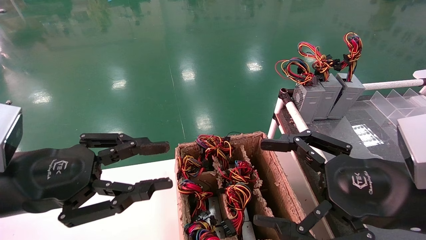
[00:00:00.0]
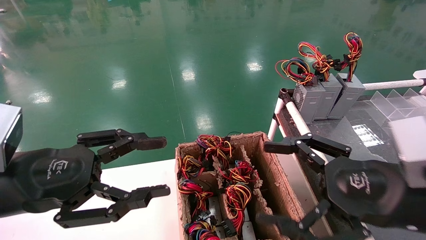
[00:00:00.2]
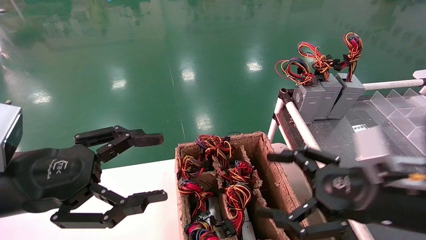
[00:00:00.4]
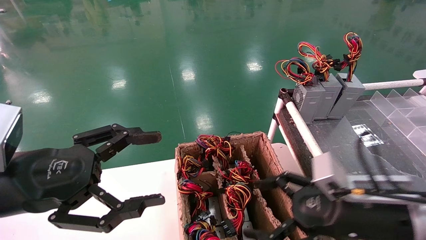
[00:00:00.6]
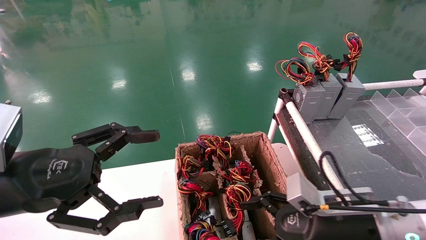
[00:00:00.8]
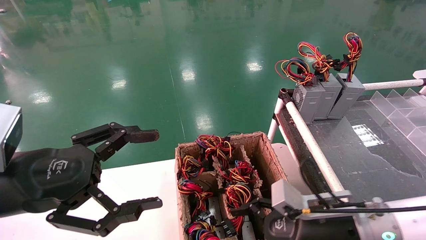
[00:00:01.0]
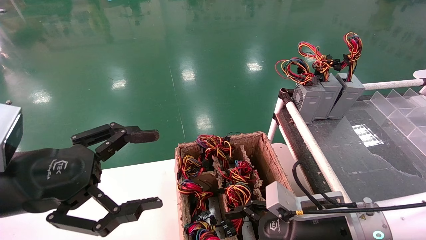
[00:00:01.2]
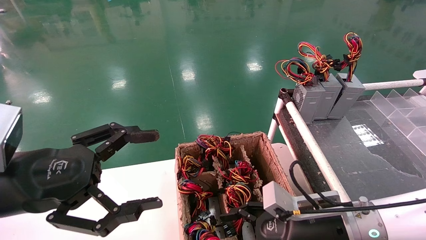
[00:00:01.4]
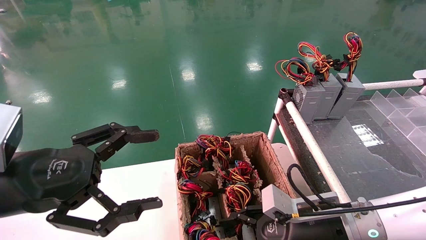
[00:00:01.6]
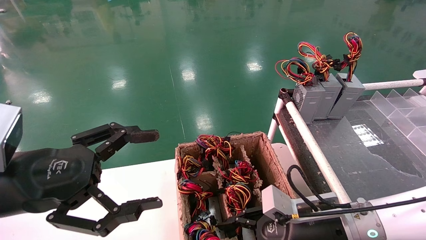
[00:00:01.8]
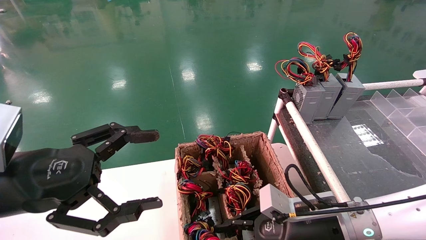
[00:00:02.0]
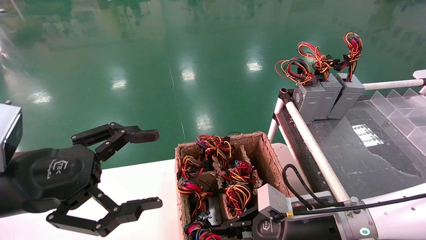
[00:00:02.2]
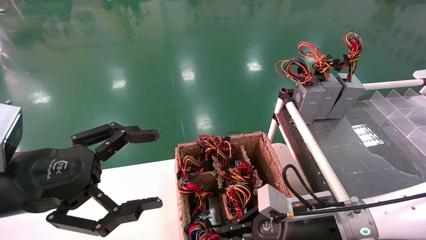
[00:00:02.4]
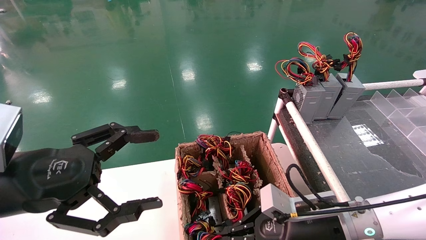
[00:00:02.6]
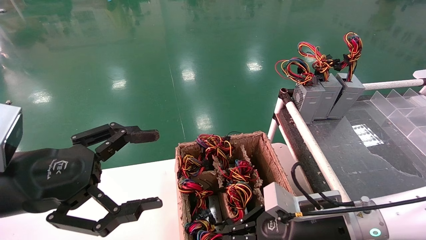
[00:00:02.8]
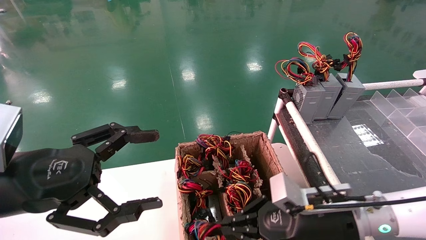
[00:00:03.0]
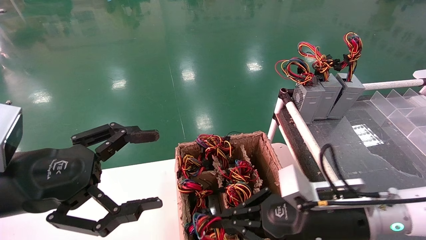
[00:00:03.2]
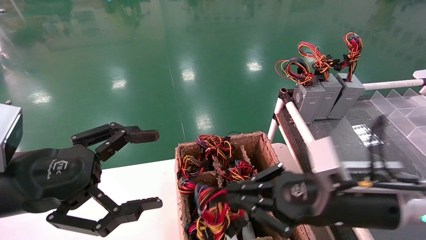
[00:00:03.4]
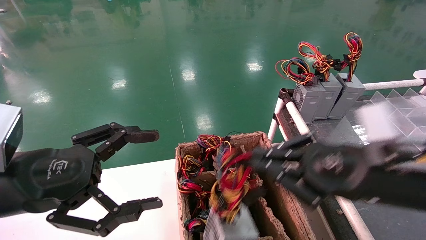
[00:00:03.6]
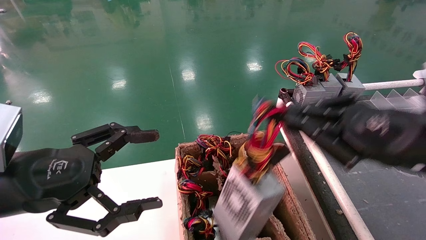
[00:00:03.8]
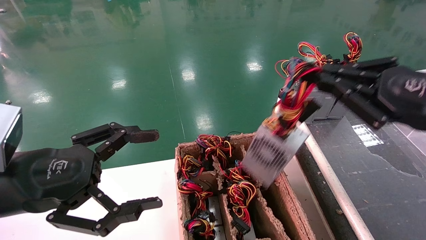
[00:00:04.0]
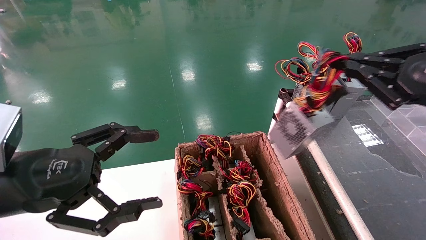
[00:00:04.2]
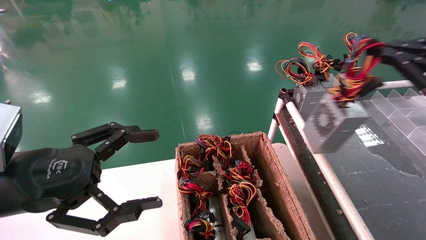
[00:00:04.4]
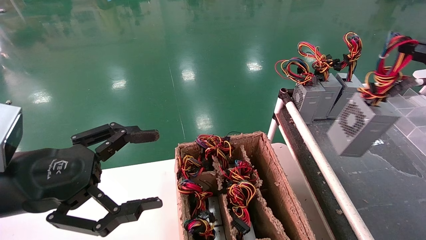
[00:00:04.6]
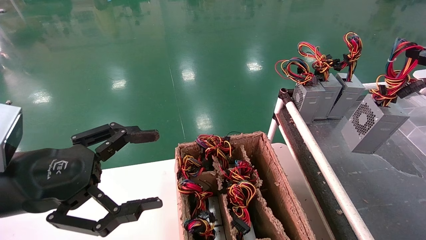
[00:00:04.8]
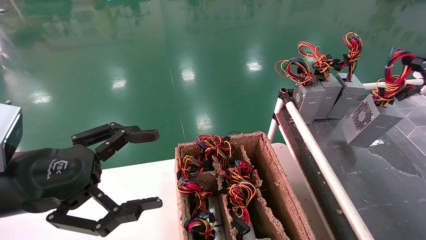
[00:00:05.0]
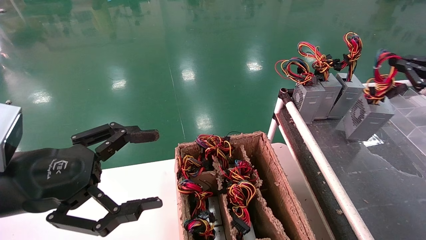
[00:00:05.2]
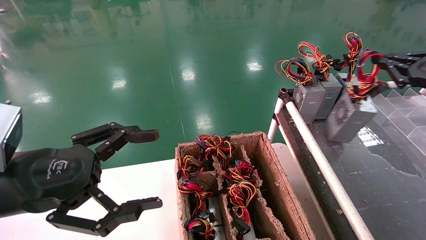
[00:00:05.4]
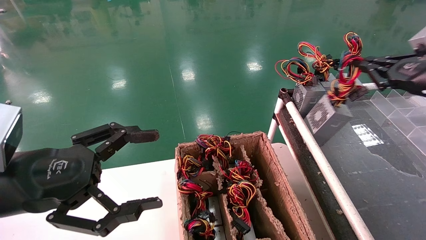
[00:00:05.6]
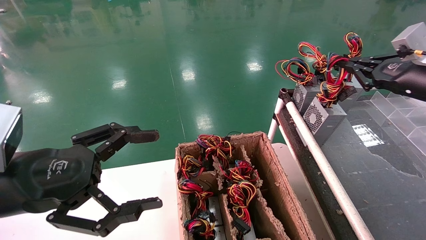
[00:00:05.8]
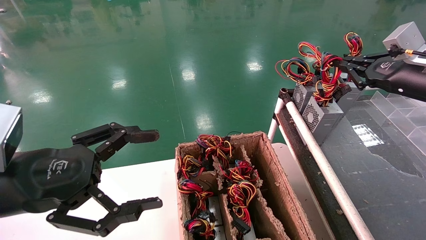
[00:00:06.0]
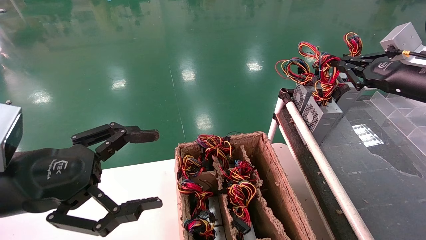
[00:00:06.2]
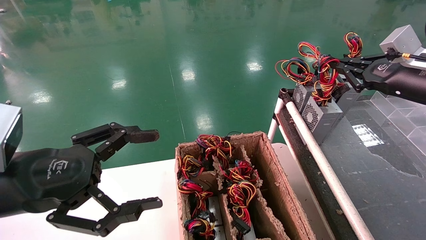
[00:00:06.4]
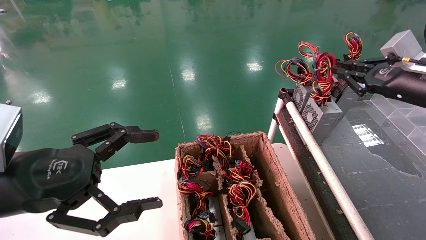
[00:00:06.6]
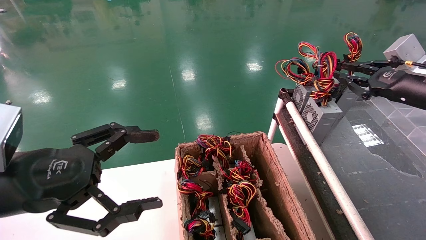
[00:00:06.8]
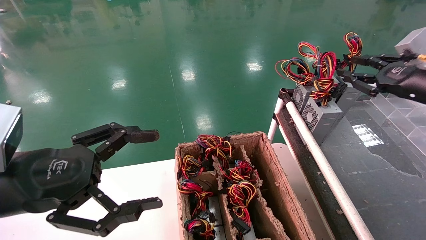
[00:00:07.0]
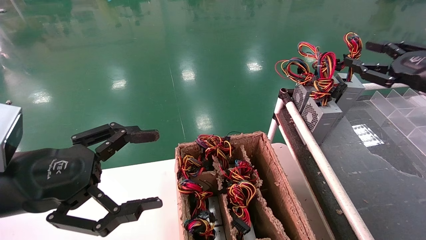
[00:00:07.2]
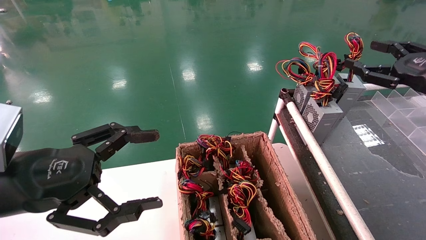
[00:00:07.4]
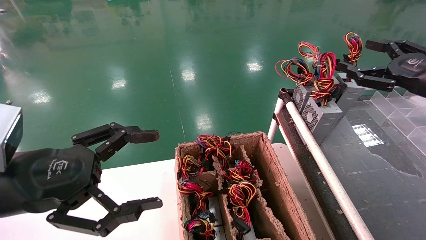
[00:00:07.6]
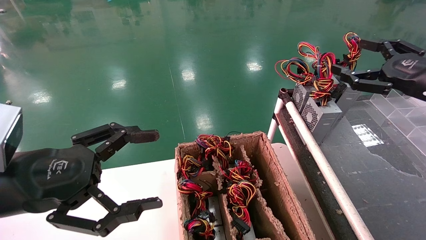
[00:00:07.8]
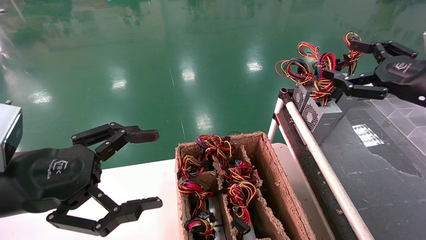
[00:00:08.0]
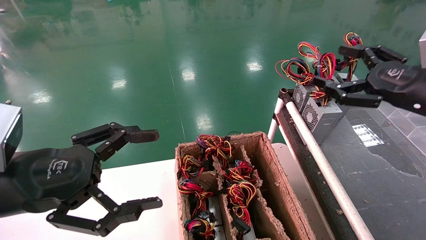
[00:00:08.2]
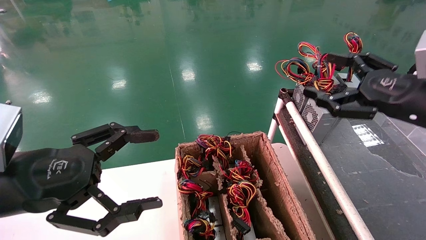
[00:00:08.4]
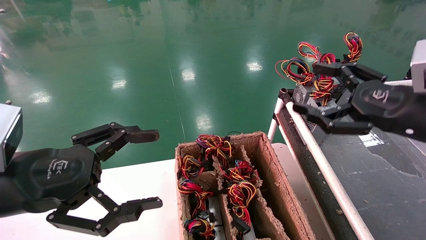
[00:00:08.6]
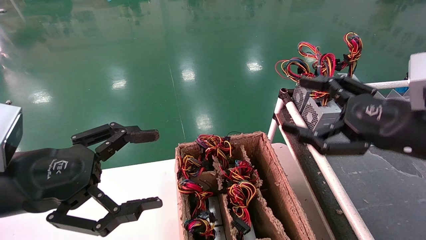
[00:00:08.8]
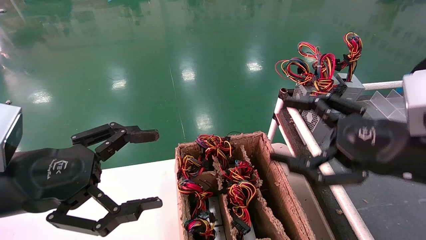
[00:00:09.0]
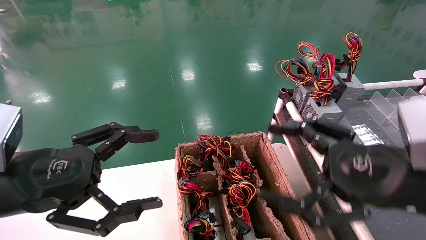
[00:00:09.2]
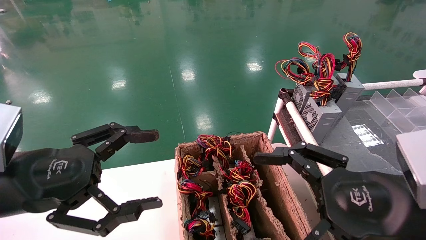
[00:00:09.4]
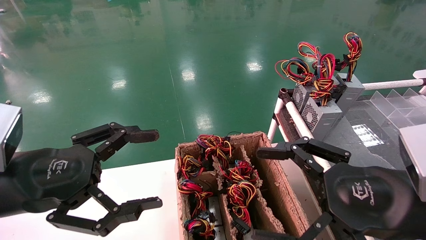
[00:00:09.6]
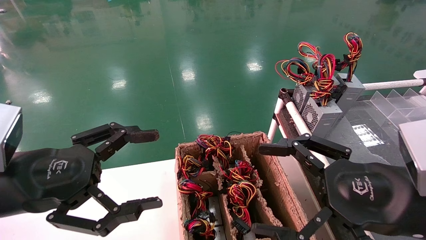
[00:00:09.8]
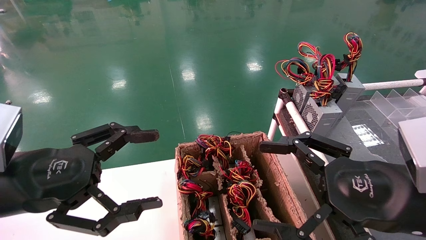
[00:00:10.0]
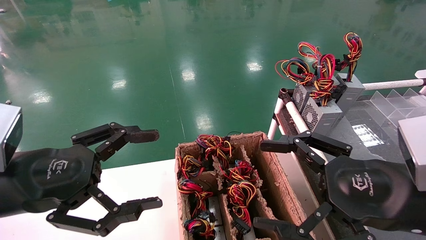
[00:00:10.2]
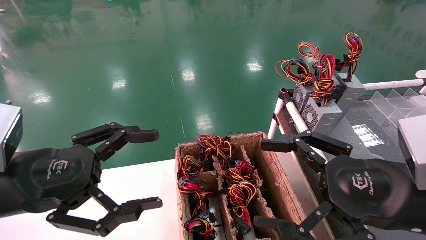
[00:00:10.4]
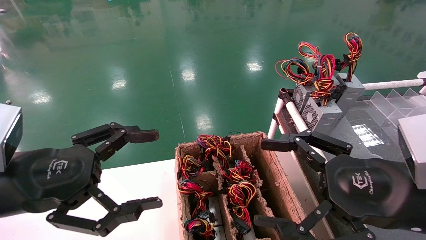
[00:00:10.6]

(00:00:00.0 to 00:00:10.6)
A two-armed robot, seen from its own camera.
Step, 00:00:00.0 - 00:00:02.4: Grab and lift the power supply from the large box.
Step, 00:00:02.6 - 00:00:06.6: Place the power supply on the operating table.
00:00:00.0 - 00:00:01.6: The right gripper moves downward, forward and to the left, approximately 15 cm, while the left gripper opens up.
00:00:01.6 - 00:00:03.0: The right gripper closes its fingers.
00:00:03.0 - 00:00:04.6: The right gripper heads to the right and upward, covering approximately 35 cm.
00:00:04.6 - 00:00:06.0: The right gripper moves forward and to the left, about 15 cm.
00:00:06.0 - 00:00:07.6: The right gripper opens up.
00:00:07.6 - 00:00:09.0: The right gripper is displaced to the left, backward and downward by roughly 20 cm.
00:00:09.0 - 00:00:10.6: The right gripper moves roughly 5 cm.
